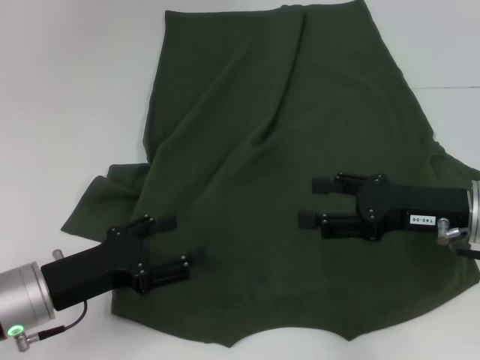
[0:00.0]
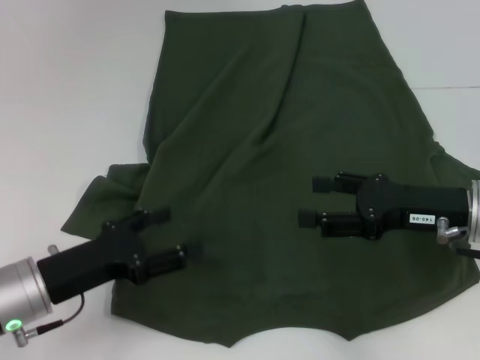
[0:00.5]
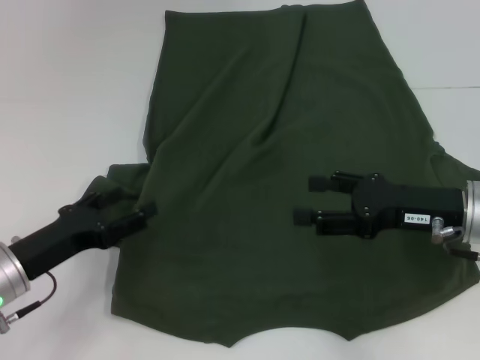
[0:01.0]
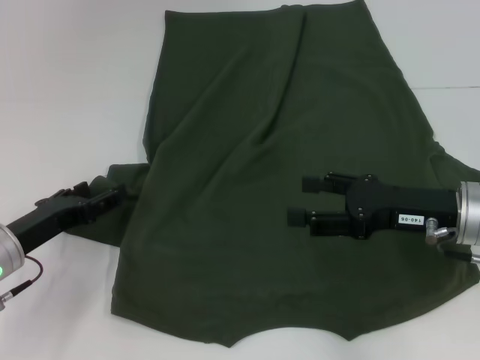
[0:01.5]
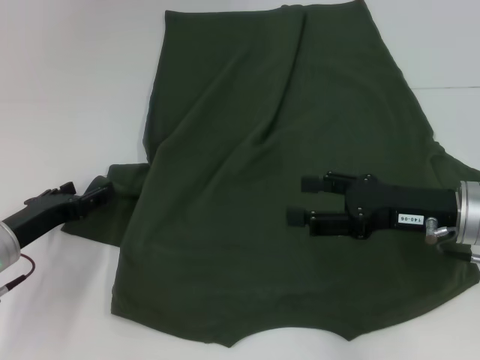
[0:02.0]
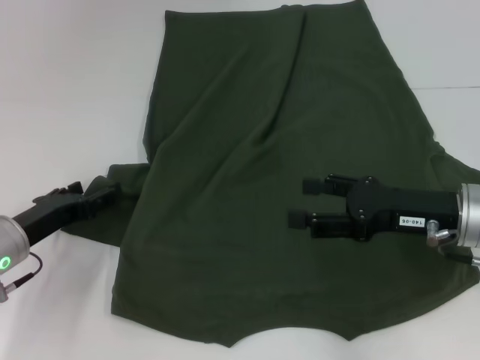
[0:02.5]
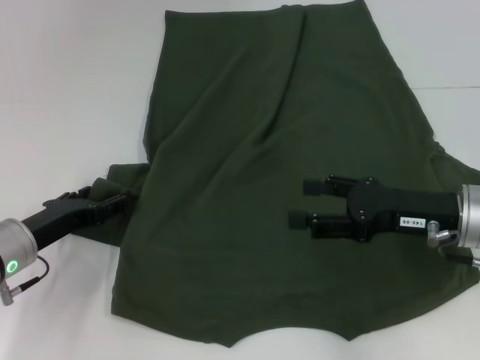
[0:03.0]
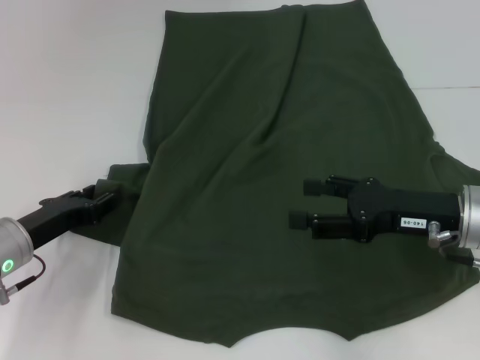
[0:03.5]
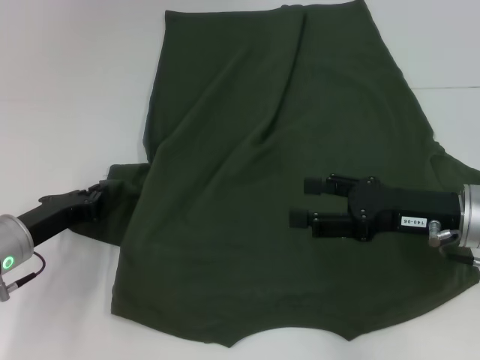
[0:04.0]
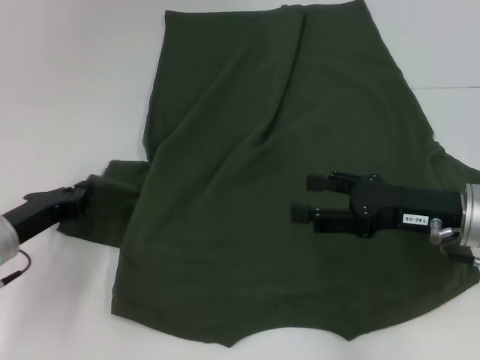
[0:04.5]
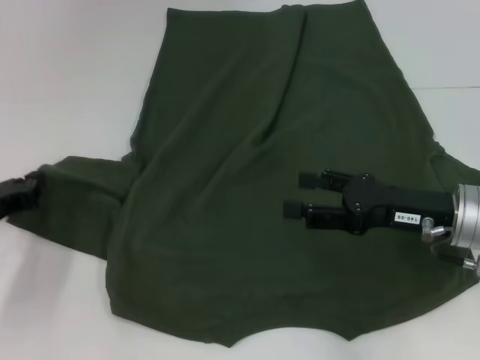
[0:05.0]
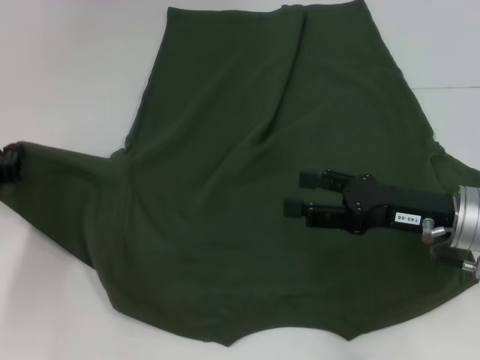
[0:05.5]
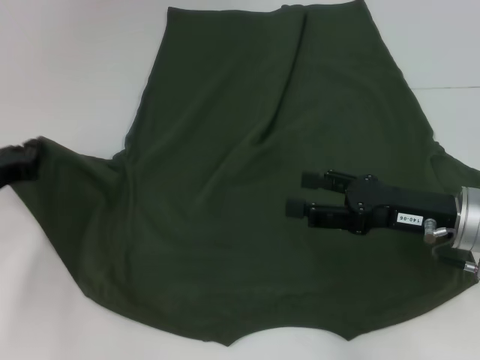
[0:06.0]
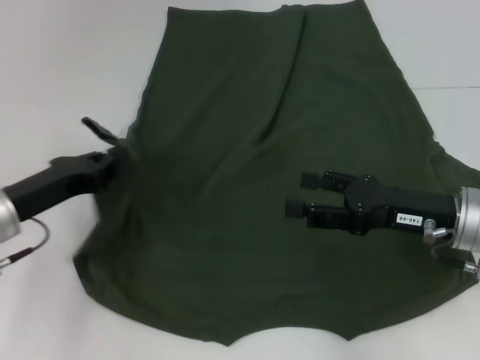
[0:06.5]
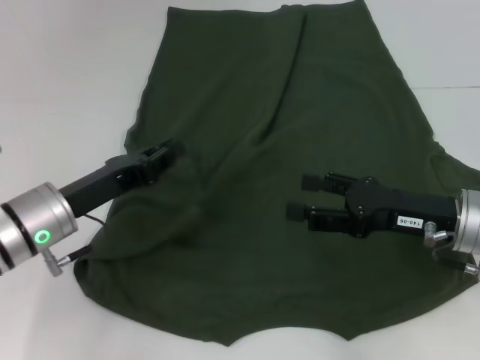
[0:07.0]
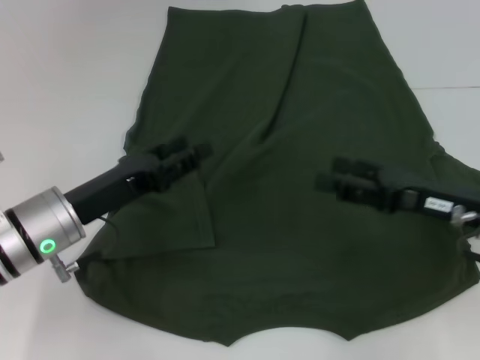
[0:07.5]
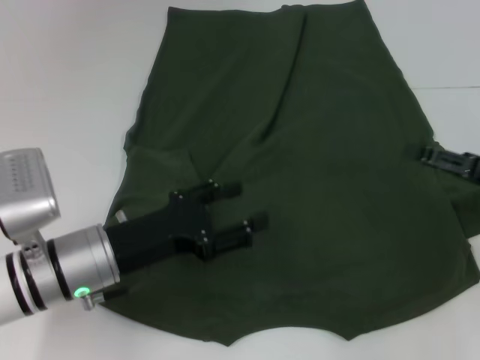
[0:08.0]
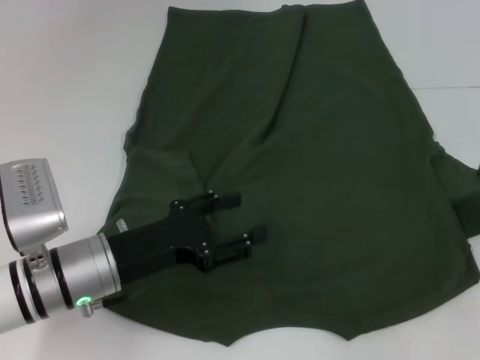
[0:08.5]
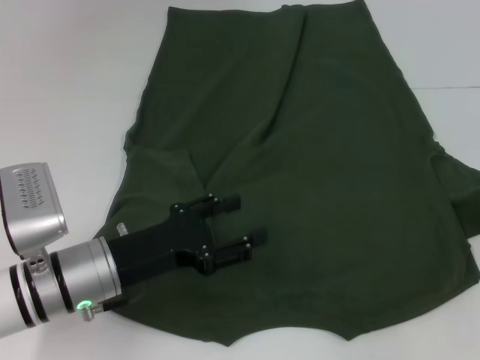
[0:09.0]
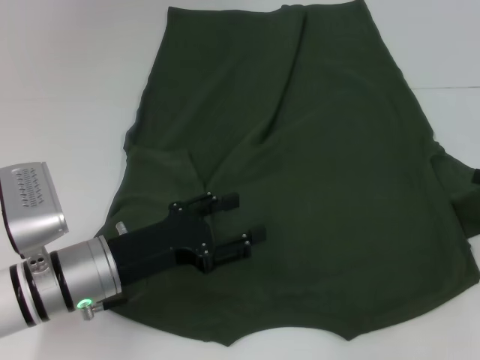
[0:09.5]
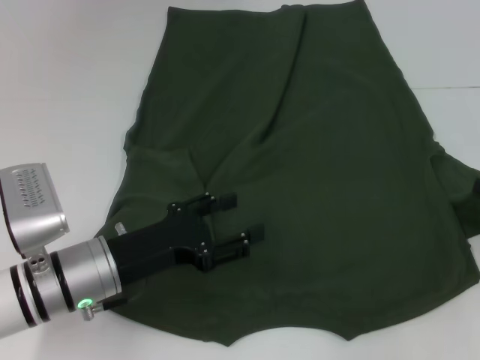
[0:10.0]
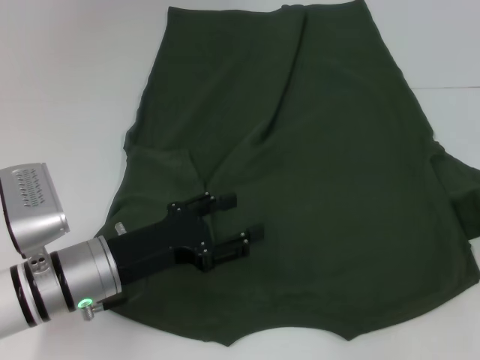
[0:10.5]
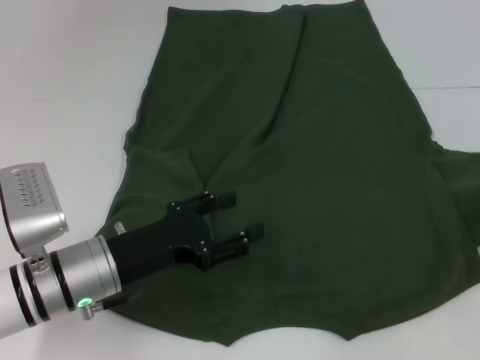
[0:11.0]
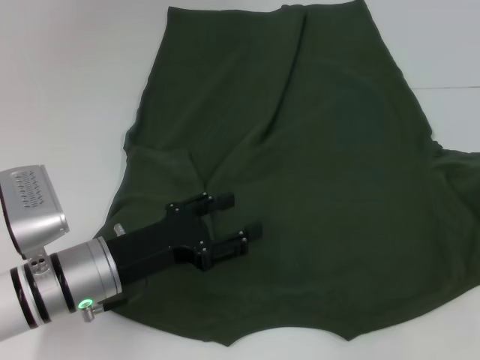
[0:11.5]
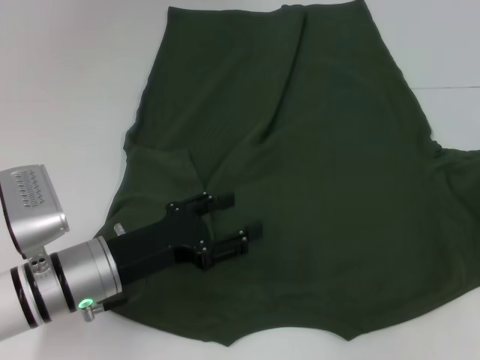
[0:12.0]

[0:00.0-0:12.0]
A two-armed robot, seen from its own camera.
Step, 0:00.0 to 0:07.0: Fold the bottom left sleeve with your left hand.
0:00.0 to 0:02.0: The left gripper shifts approximately 5 cm forward.
0:02.0 to 0:04.0: The left gripper closes its fingers.
0:04.0 to 0:06.0: The left gripper shifts by some 5 cm, and closes.
0:06.0 to 0:08.0: Both grippers move to the right, about 10 cm. The left gripper opens its fingers.
0:08.0 to 0:10.0: The right gripper travels to the right by about 5 cm.
0:10.0 to 0:12.0: The right gripper changes place by some 5 cm, and closes up.

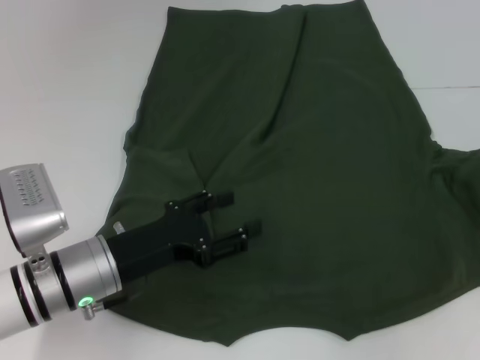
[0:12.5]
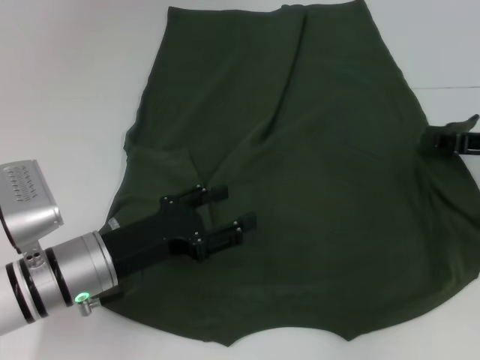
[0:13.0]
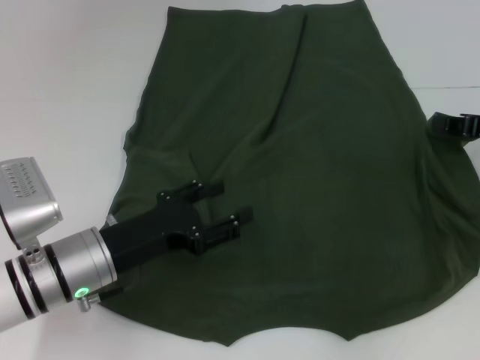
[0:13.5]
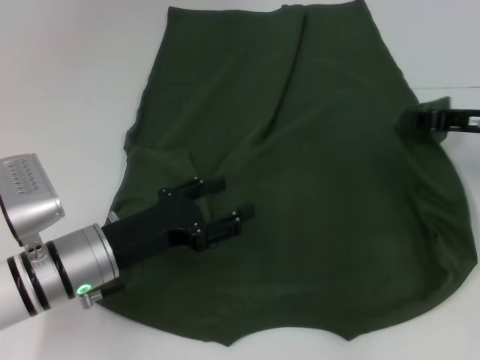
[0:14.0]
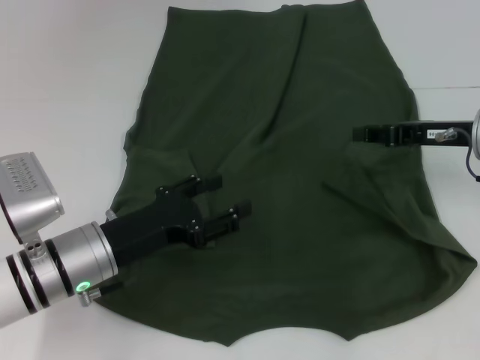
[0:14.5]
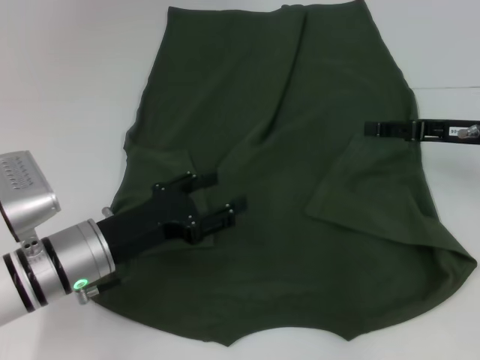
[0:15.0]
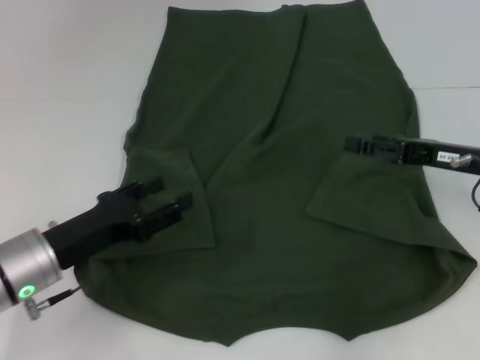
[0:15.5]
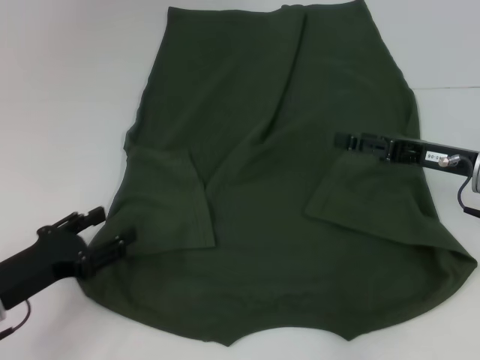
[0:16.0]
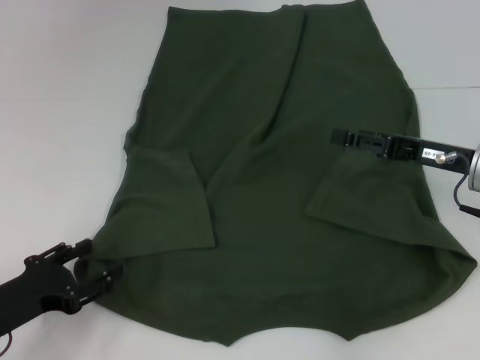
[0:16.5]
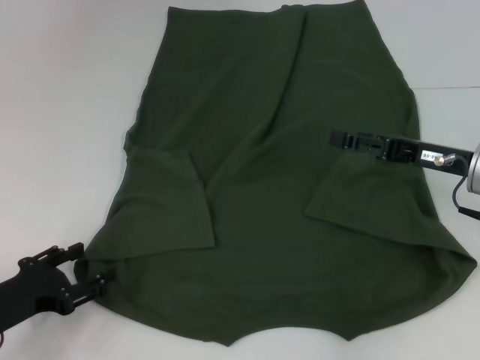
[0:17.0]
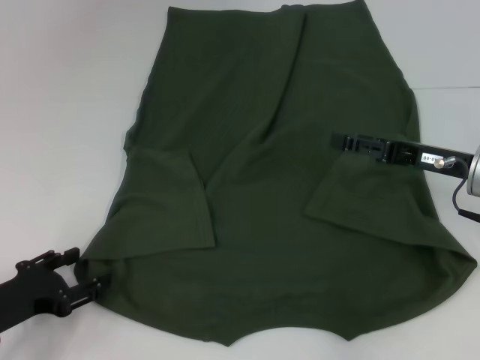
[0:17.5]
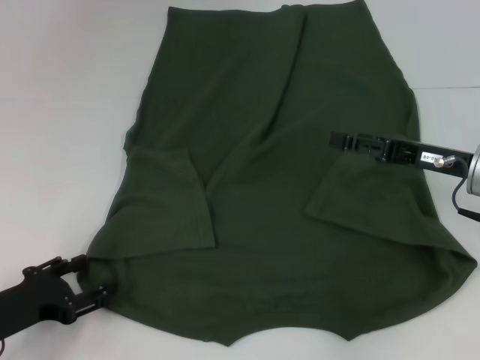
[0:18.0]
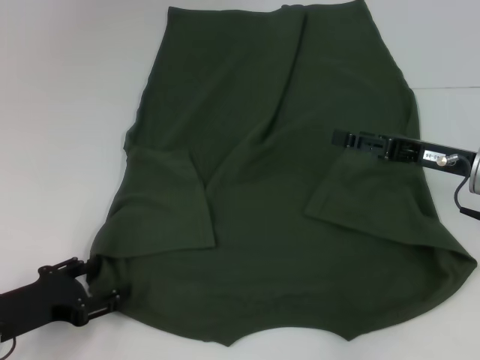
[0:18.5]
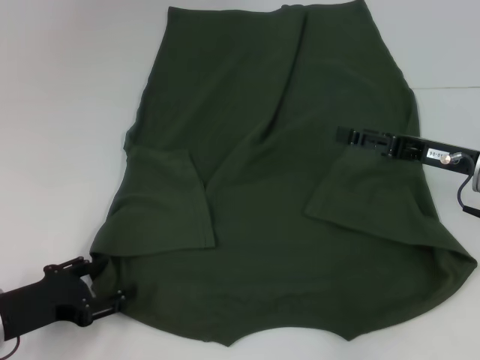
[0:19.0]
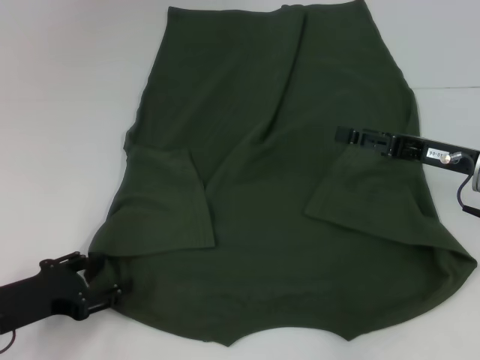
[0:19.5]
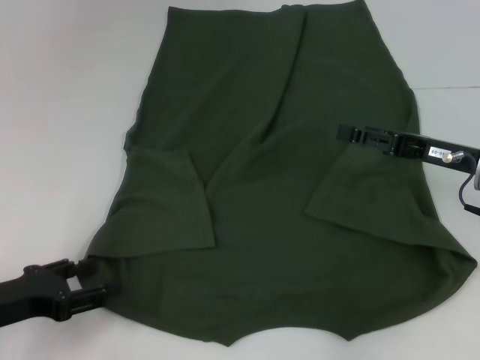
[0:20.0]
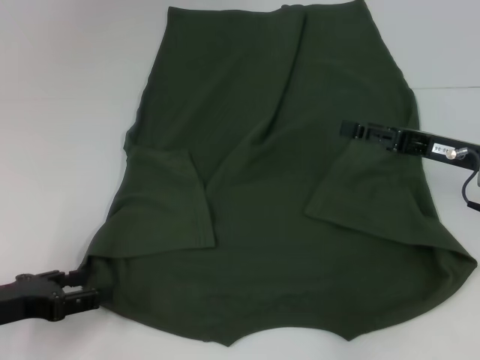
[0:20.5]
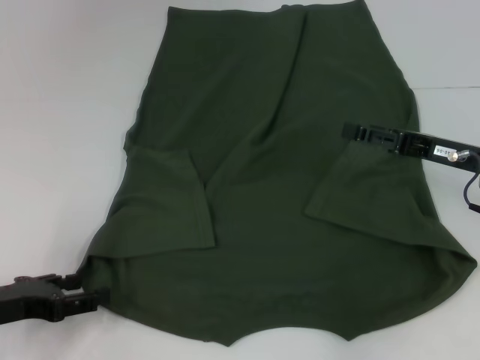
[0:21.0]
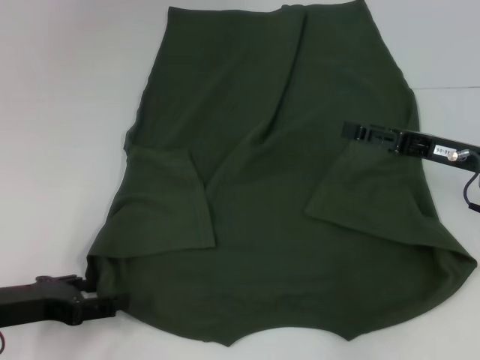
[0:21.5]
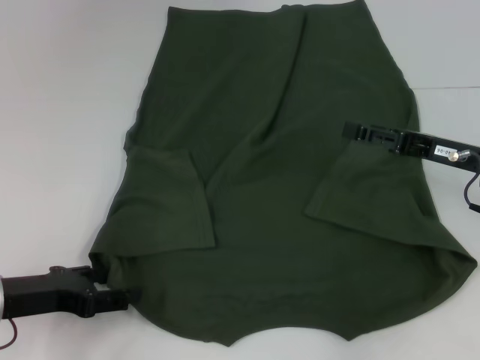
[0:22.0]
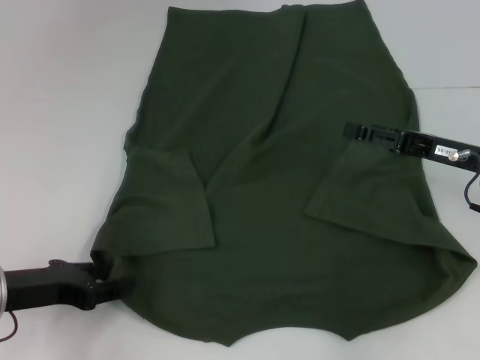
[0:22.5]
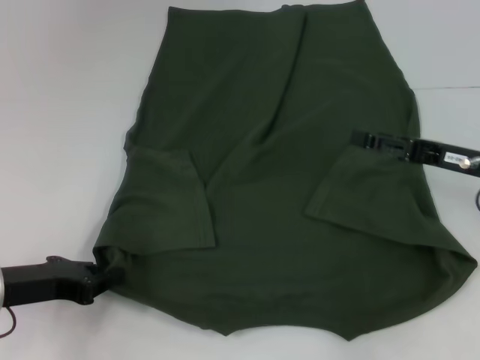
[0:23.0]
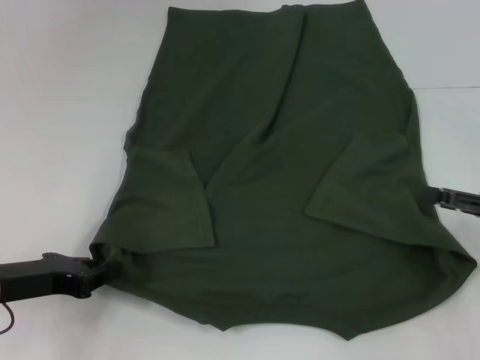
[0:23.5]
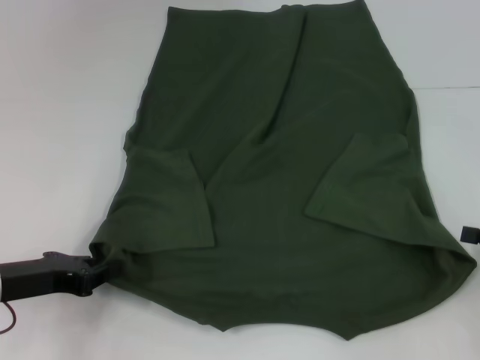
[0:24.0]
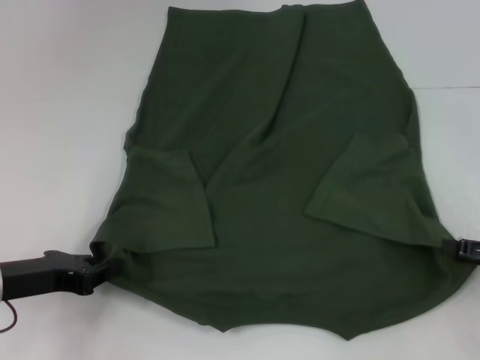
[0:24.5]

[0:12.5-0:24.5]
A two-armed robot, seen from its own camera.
Step, 0:12.5 to 0:16.5: Fold the bottom right sleeve with your right hand.
Step, 0:17.0 to 0:23.0: Grab the bottom left corner with your left hand.
0:12.5 to 0:14.5: The right gripper goes approximately 15 cm to the left.
0:14.5 to 0:16.5: The left gripper moves to the left and backward, about 15 cm, while the right gripper opens.
0:16.5 to 0:18.5: The grippers make only small movements.
0:18.5 to 0:22.5: The grippers stay close to where they were, moving slightly.
0:22.5 to 0:24.5: The left gripper closes its fingers; the right gripper heads to the right and backward, covering roughly 15 cm.

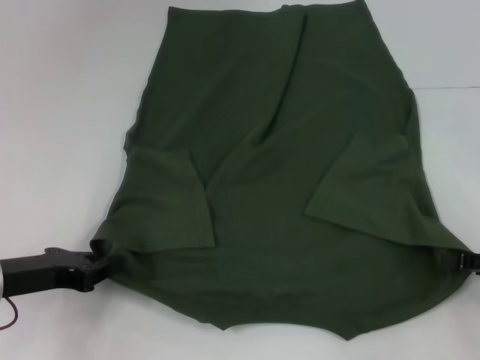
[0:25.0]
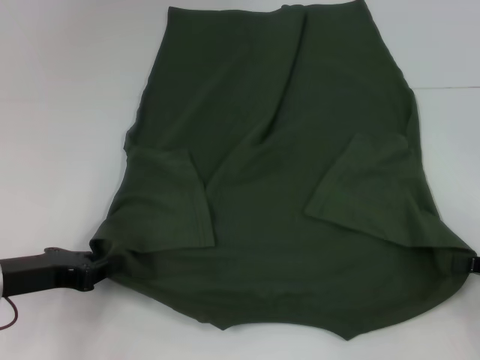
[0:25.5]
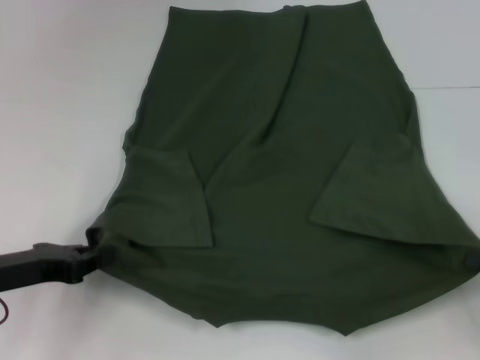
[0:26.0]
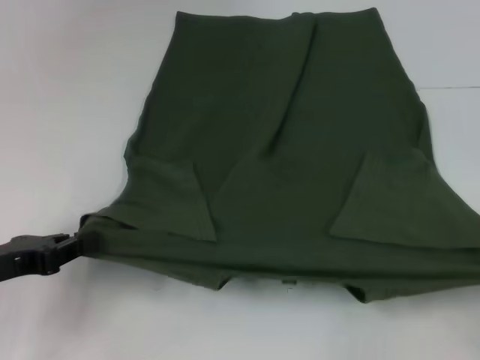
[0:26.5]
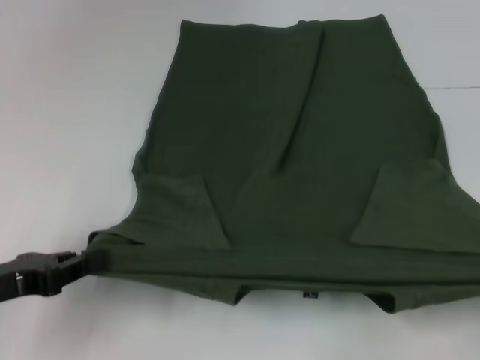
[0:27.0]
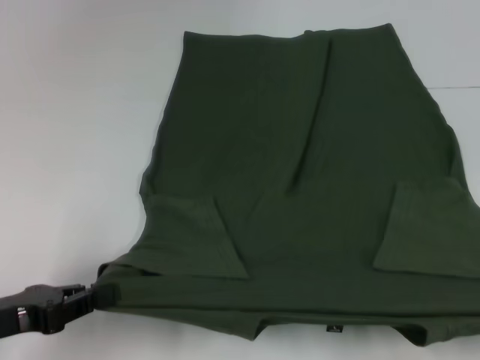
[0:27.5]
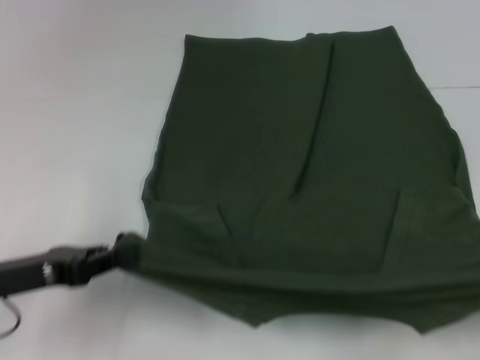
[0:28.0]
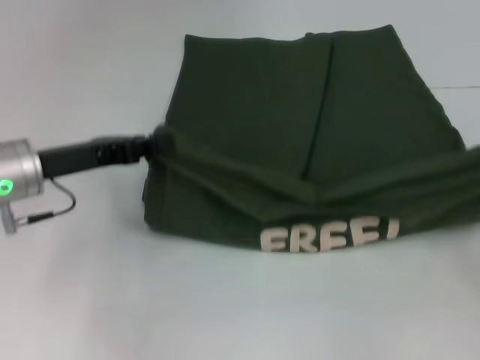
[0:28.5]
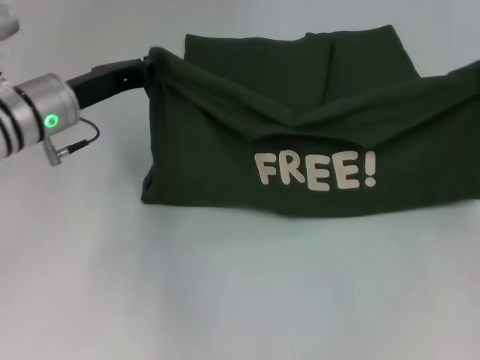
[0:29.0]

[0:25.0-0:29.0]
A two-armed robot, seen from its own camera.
0:25.0 to 0:27.0: The right gripper is displaced backward by approximately 10 cm, and closes its fingers.
0:27.0 to 0:29.0: The left gripper heads forward and to the right, covering about 20 cm. Meanwhile the right gripper shifts some 20 cm forward.
